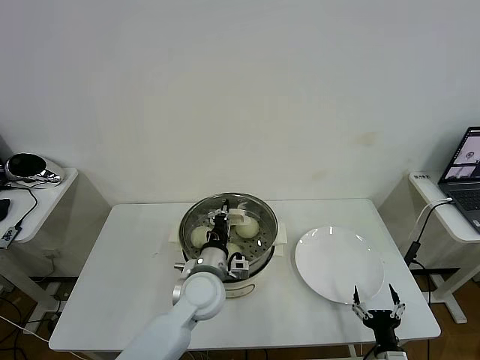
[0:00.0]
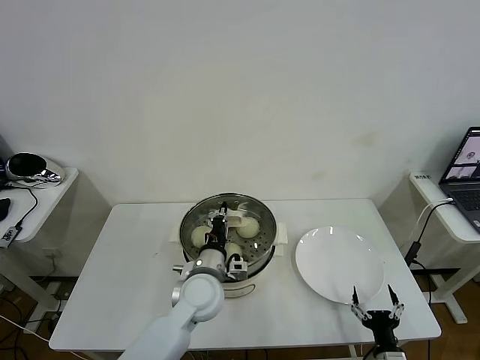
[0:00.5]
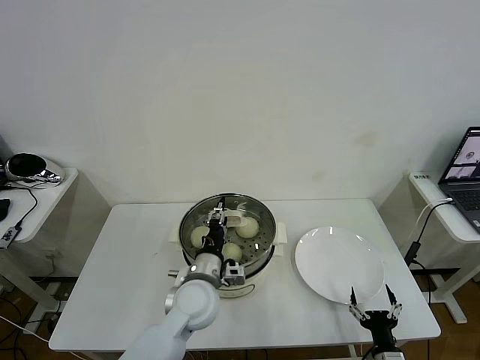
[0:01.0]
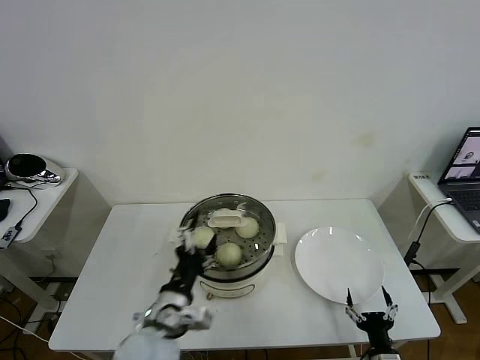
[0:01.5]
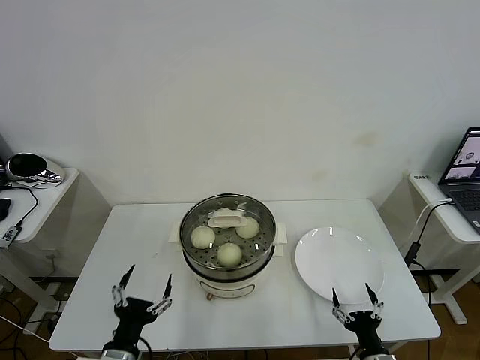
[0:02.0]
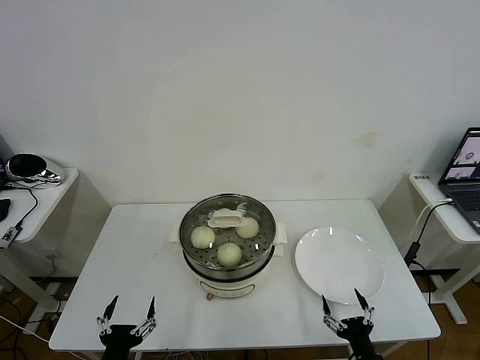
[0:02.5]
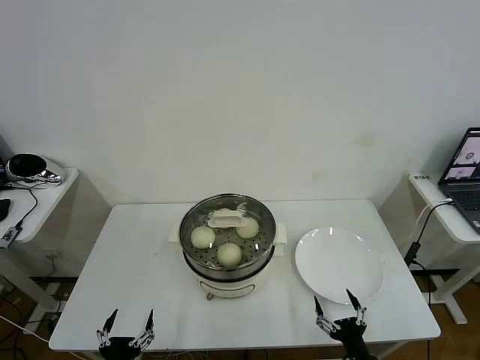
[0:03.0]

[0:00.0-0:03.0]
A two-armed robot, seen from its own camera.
Task of the whole recording: take steamed baozi put them in steamer then cover it.
0:00.0 to 0:01.5: The left gripper is displaced backward and to the left by some 10 cm, and opens up.
0:01.5 to 0:03.0: The left gripper travels backward, to the left and downward by about 20 cm; the right gripper changes place by approximately 5 cm.
